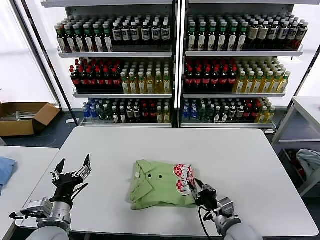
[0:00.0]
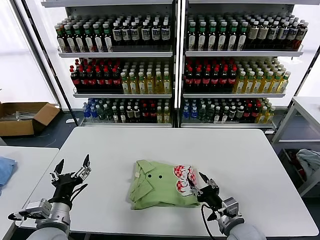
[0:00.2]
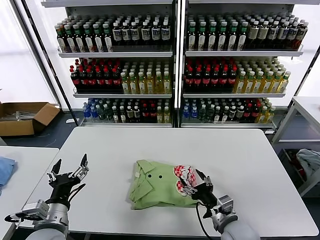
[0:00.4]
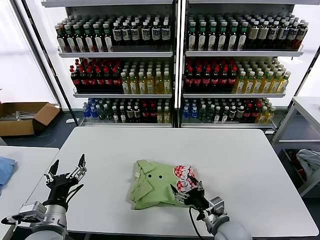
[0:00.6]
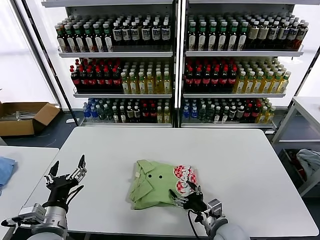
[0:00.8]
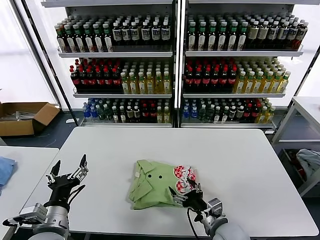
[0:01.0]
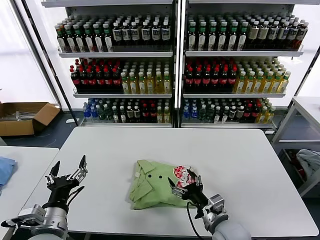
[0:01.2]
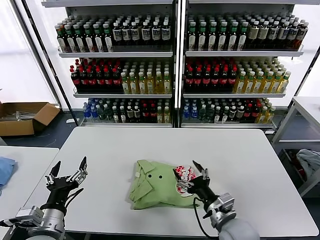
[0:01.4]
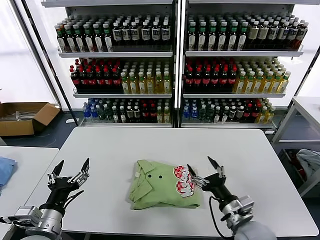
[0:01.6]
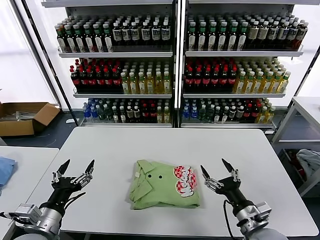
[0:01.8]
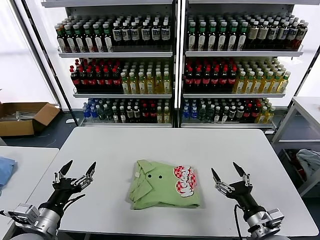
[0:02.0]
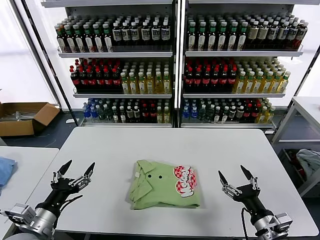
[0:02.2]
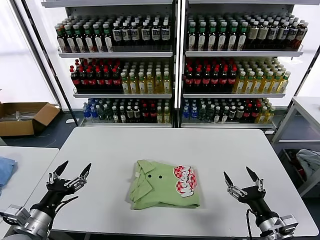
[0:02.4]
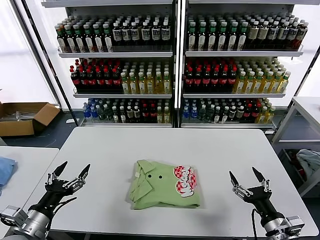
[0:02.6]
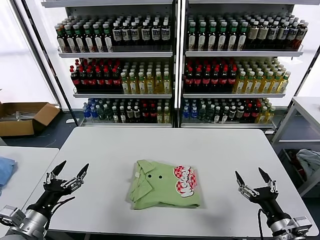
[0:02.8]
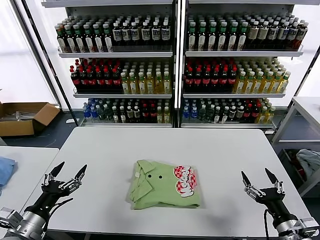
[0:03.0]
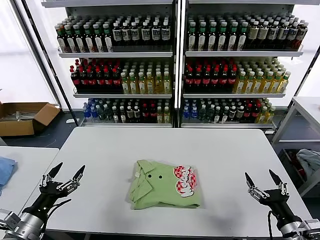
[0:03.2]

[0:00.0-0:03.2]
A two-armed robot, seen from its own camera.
Task of the whole recording: fold and organize the clothes.
0:00.0 to 0:01.6: The right gripper opens up.
0:01.6 to 0:03.2: The left gripper travels to the left by roughly 10 cm. Meanwhile the right gripper travels to the right and backward by approximately 15 cm.

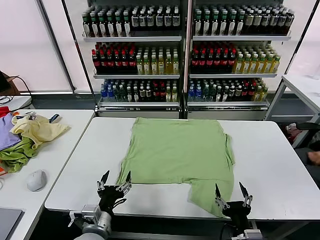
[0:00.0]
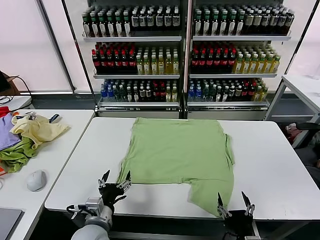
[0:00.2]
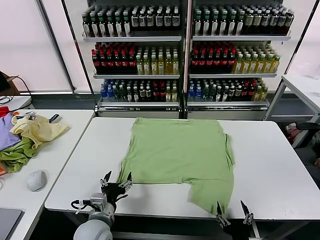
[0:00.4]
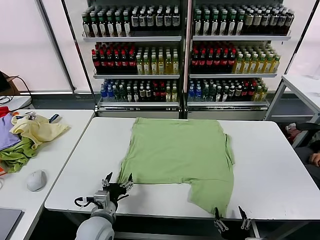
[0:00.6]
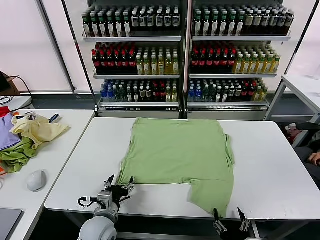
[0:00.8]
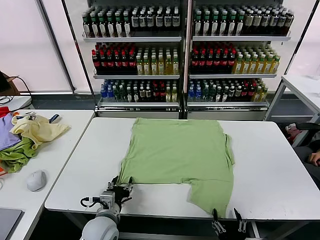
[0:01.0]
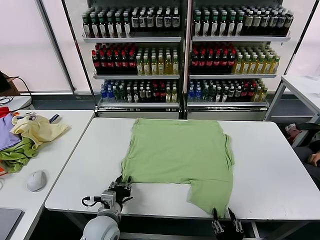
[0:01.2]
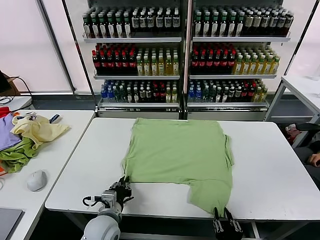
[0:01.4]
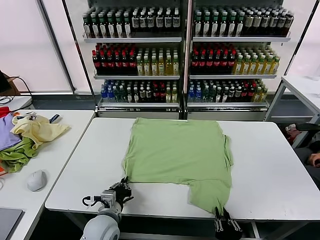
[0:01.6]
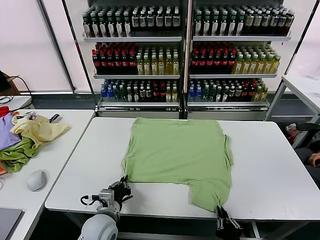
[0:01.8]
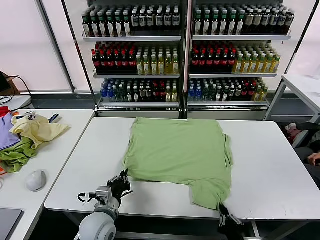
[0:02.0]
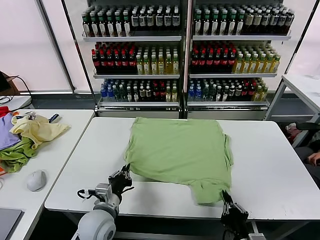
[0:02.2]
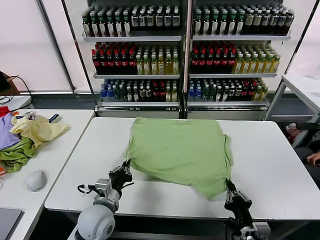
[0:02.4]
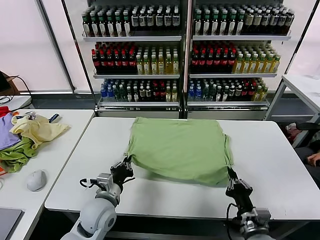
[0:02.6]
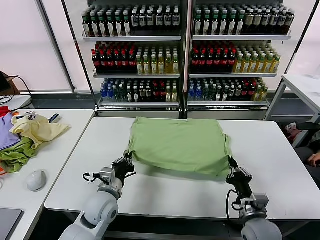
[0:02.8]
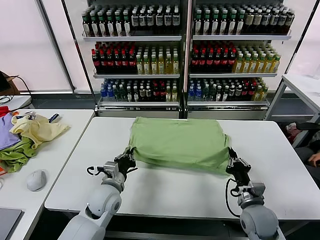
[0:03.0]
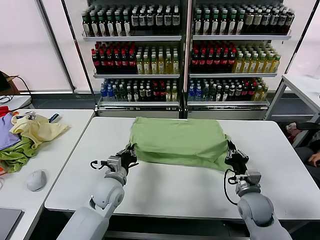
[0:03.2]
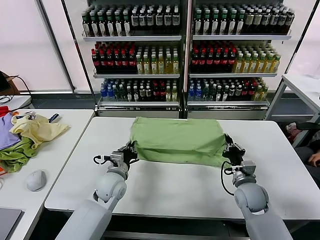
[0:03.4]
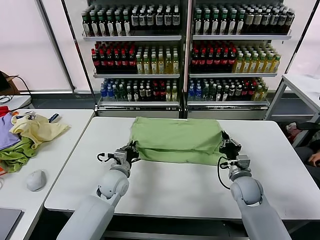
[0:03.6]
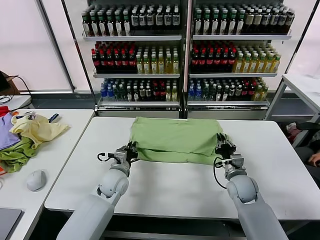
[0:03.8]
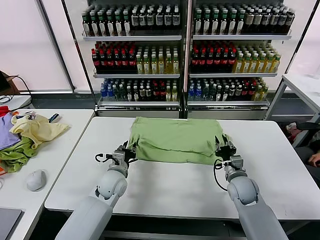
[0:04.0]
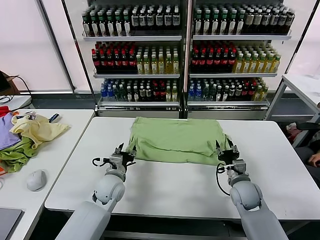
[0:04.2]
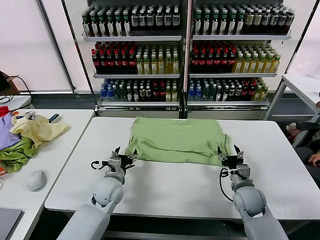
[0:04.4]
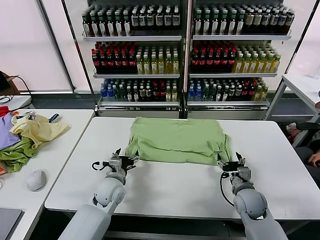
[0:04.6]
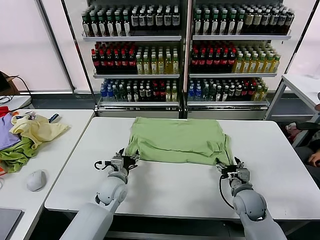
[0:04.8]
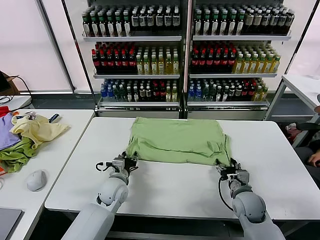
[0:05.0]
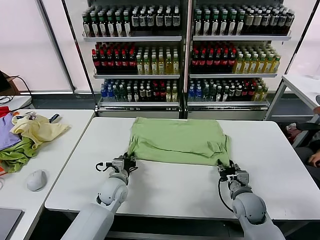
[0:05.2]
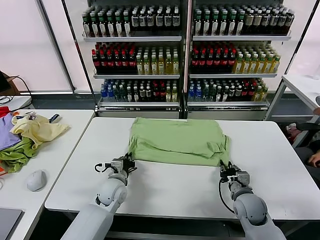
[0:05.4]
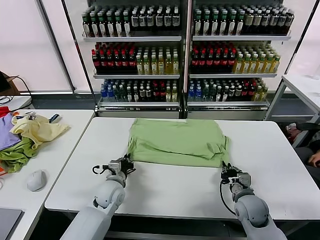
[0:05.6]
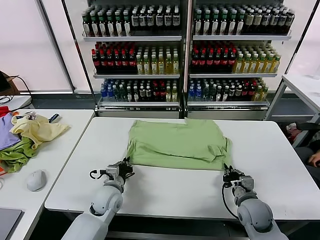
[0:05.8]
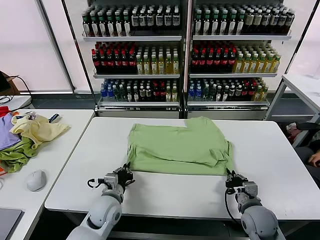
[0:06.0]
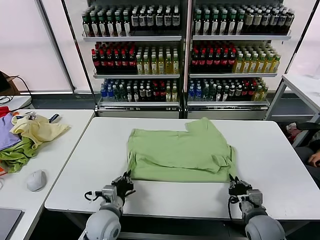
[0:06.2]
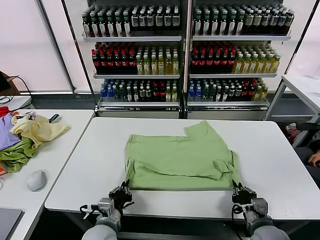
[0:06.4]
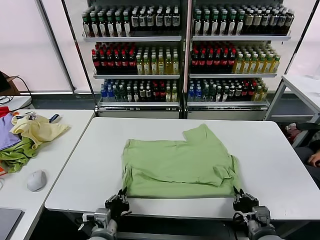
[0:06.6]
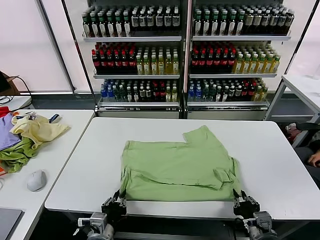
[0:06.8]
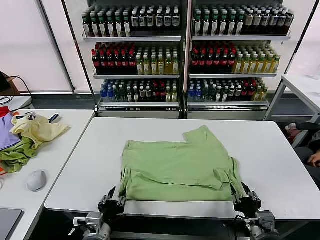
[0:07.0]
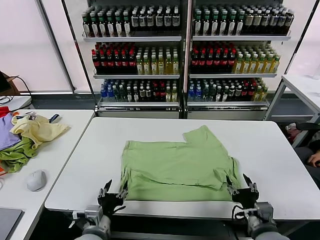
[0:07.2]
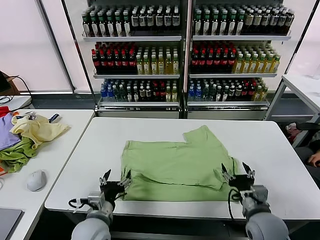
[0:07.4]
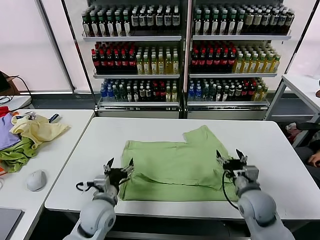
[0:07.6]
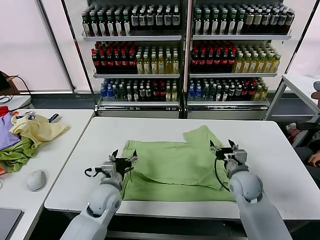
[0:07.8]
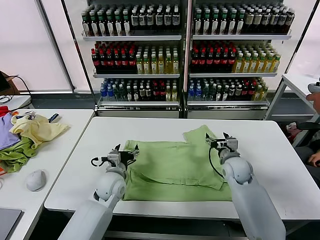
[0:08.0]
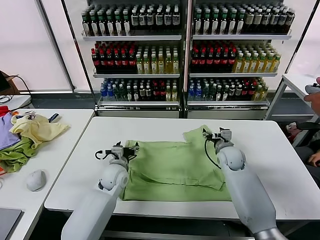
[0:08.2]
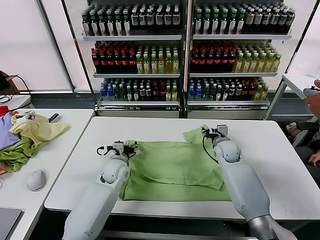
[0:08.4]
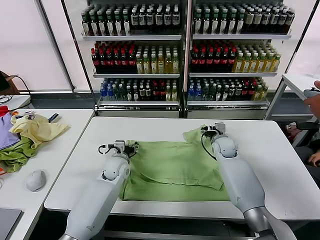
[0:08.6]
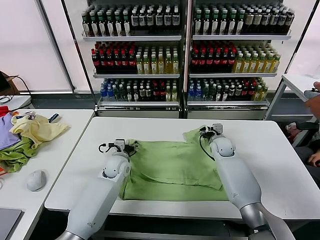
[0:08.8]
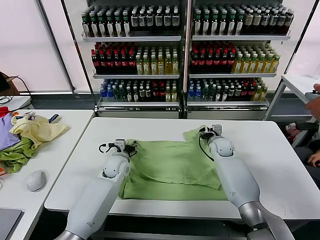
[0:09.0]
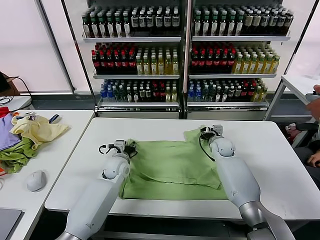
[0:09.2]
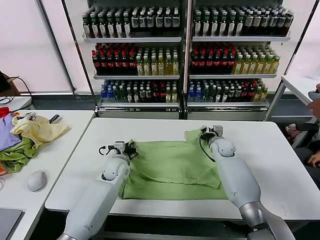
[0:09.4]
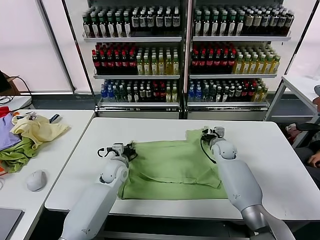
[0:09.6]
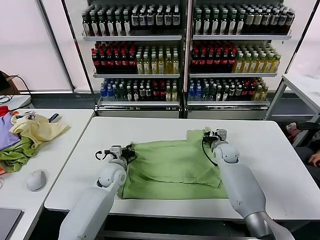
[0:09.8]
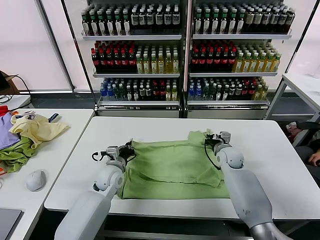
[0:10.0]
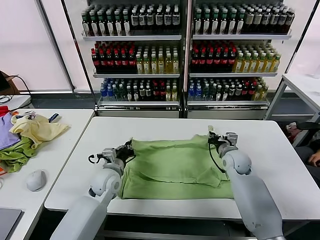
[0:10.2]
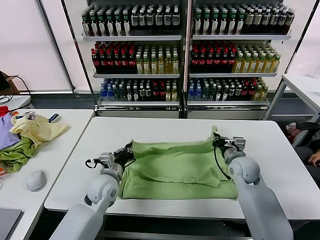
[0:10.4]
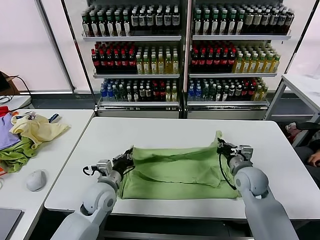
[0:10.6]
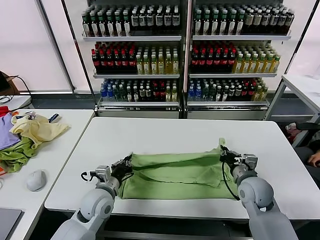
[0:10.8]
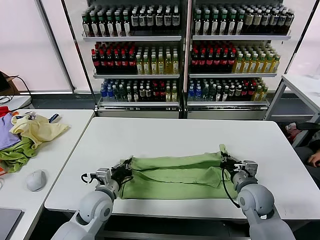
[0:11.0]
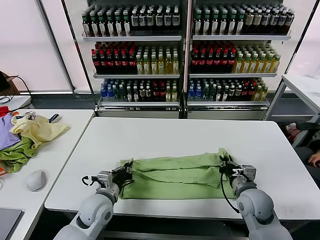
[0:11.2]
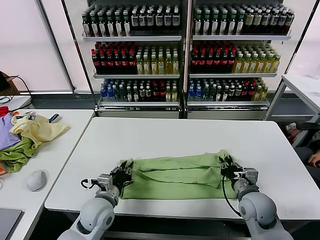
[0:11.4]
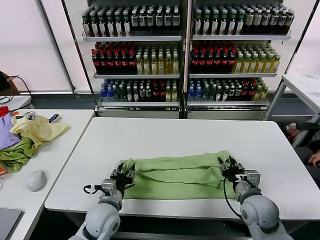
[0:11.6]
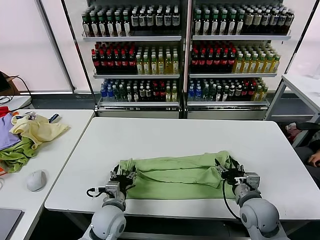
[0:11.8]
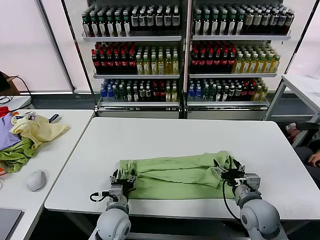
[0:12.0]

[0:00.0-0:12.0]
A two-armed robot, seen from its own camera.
Task of the whole recording: fold and organize the clothes.
Step, 0:00.0 to 0:01.8: use both grippers simultaneously to clamp the lower edge of the clothing fabric.
Step, 0:02.0 to 0:04.0: use both grippers to drag the lower edge of the fabric forward and fold it over the upper edge.
Step, 0:04.2 to 0:07.0: Drag the clothes downward with both gripper.
Step, 0:07.2 to 0:09.4: use both grippers simultaneously to clamp the upper edge of the clothing fabric.
Step, 0:09.8 to 0:11.6: use both grippers to drag the upper edge of the fabric backward and fold it over the lower edge.
0:01.6 to 0:03.0: The left gripper heads forward, covering approximately 10 cm; the right gripper heads forward, covering roughly 20 cm.
0:03.0 to 0:04.4: The right gripper opens its fingers. Meanwhile the left gripper shifts by approximately 5 cm, and opens up.
0:04.4 to 0:06.0: The two grippers go about 5 cm backward. The left gripper closes its fingers. Meanwhile the right gripper closes.
0:06.0 to 0:07.6: The right gripper moves forward and upward, approximately 10 cm, and opens its fingers. The left gripper reaches approximately 15 cm backward, then returns, and opens.
0:07.6 to 0:09.0: Both grippers travel together forward, roughly 20 cm. The right gripper closes up.
0:09.0 to 0:10.4: Both grippers travel together backward, approximately 15 cm. The left gripper closes, while the right gripper closes.
0:10.4 to 0:12.0: The right gripper travels backward by about 15 cm, and opens its fingers. The left gripper shifts roughly 10 cm backward and downward, and opens.

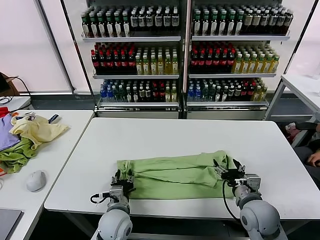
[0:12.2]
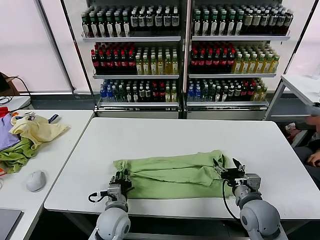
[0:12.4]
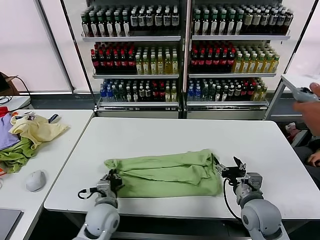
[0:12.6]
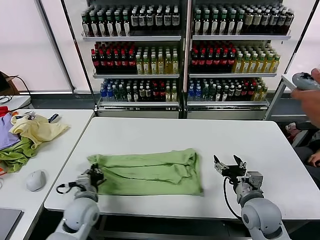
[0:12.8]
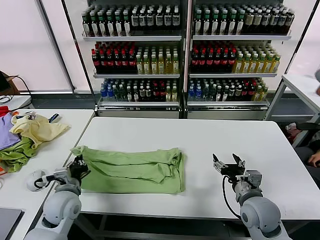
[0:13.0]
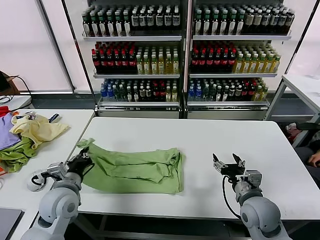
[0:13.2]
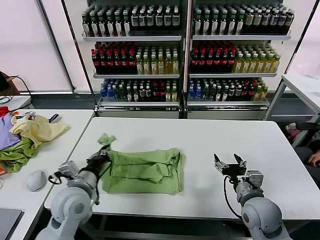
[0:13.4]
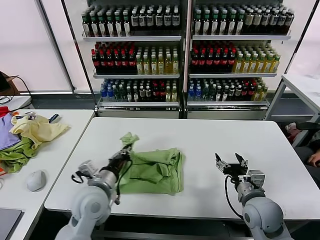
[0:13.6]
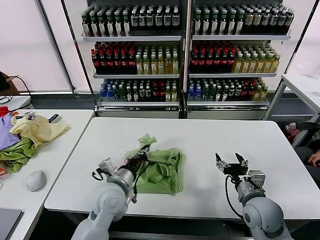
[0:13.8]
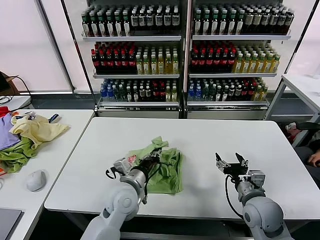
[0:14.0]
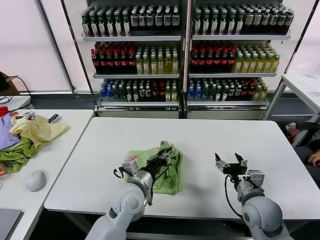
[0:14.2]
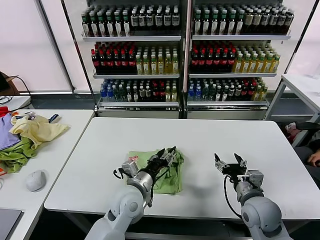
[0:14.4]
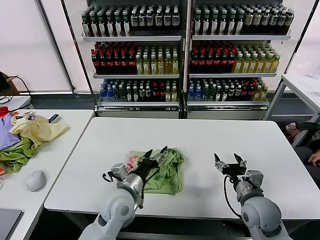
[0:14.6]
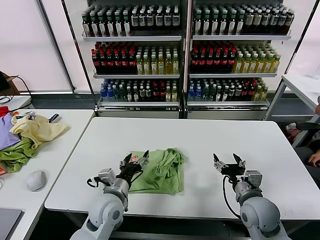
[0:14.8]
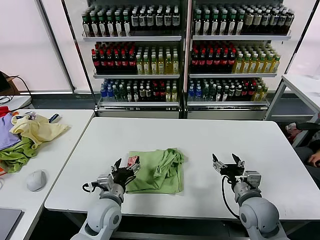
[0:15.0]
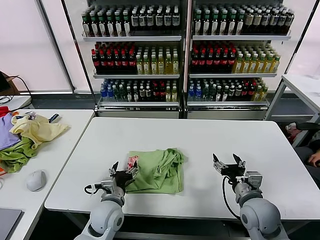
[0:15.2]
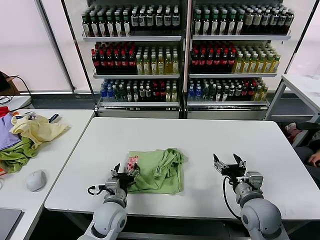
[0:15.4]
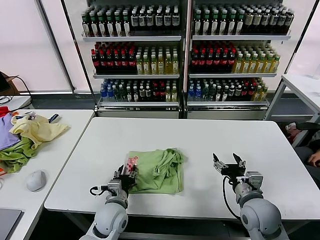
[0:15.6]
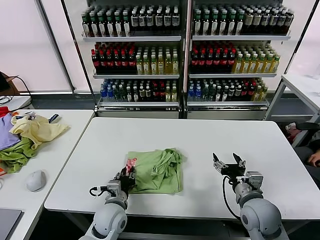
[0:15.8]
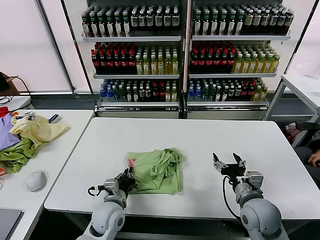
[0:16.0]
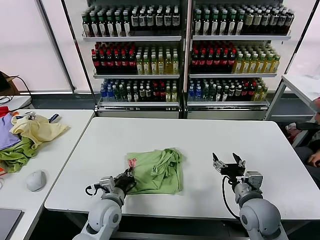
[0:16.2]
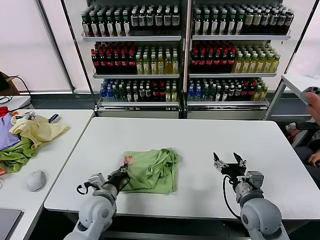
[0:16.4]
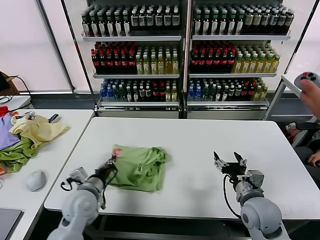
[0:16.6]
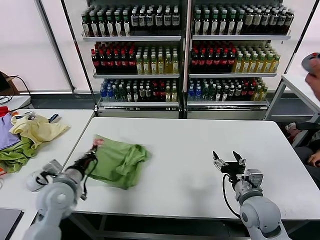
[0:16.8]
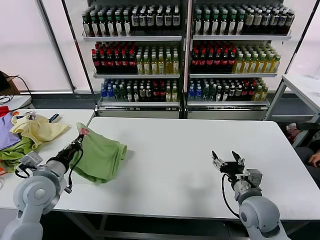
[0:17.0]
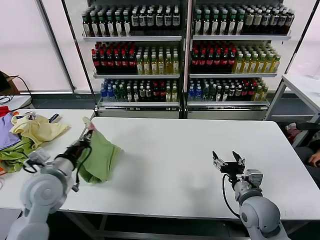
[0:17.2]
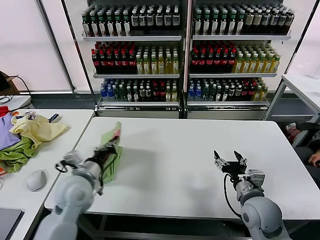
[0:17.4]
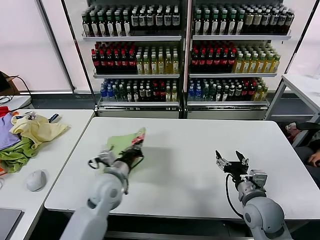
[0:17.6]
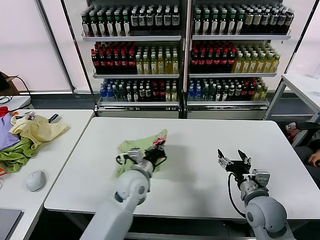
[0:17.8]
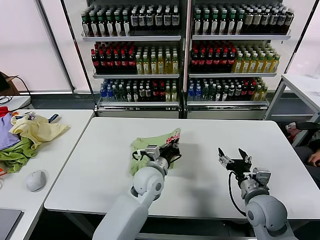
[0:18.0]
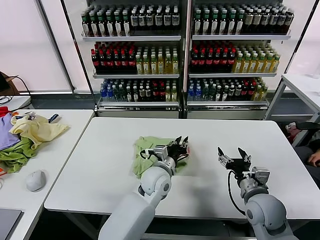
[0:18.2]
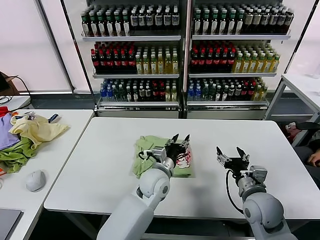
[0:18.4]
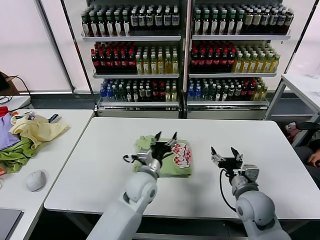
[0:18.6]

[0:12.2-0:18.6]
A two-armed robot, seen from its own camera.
Task of the whole recording: fold and organize the clothes.
Step, 0:12.6 to 0:14.4: use the left gripper to drag the left edge of the fabric to the left and folds it over the right edge.
Step, 0:14.6 to 0:18.2: Flip the folded clothes over with left gripper.
0:12.2 to 0:13.8: The left gripper shifts approximately 10 cm upward, travels to the left and back again, approximately 15 cm each way, and closes.
0:13.8 to 0:15.4: The left gripper travels downward by roughly 10 cm, and opens.
0:15.4 to 0:17.0: The left gripper moves to the left and upward, about 20 cm, and closes up.
0:17.0 to 0:18.6: The left gripper goes roughly 30 cm to the right, and opens its fingers.
